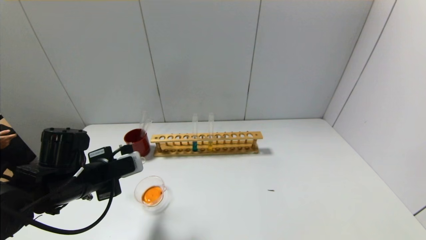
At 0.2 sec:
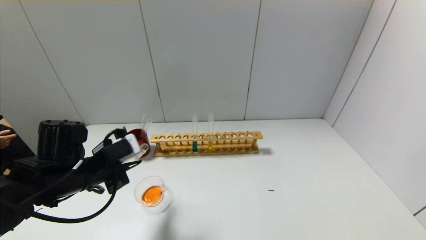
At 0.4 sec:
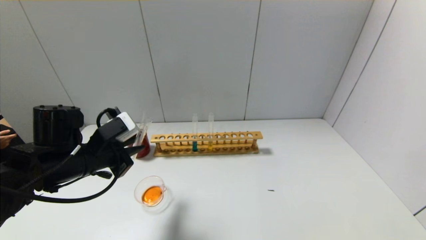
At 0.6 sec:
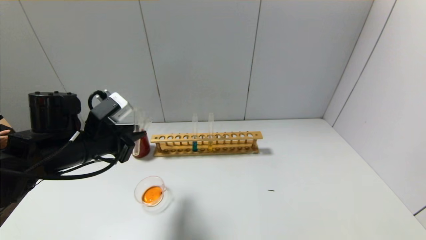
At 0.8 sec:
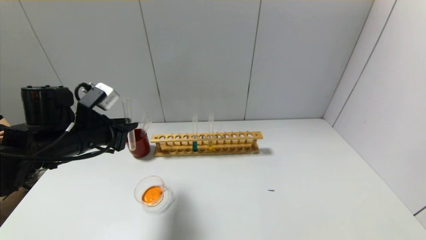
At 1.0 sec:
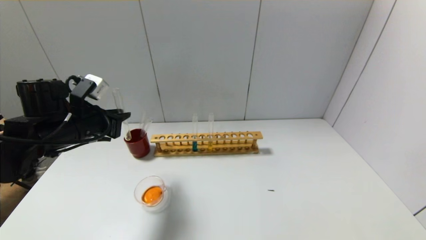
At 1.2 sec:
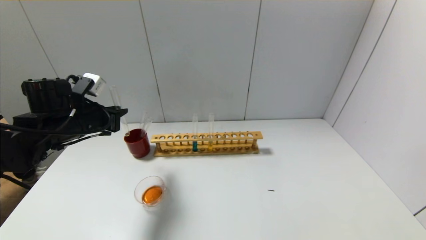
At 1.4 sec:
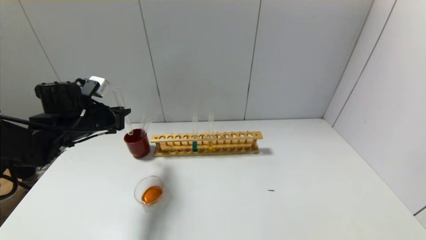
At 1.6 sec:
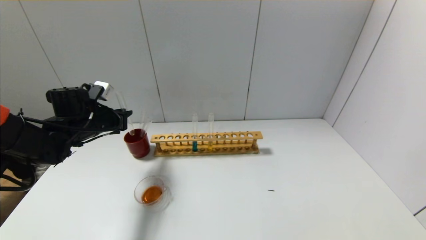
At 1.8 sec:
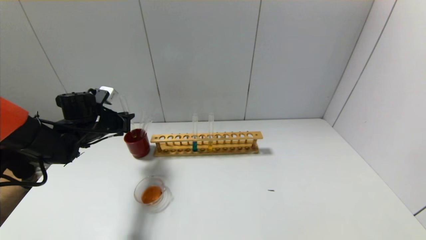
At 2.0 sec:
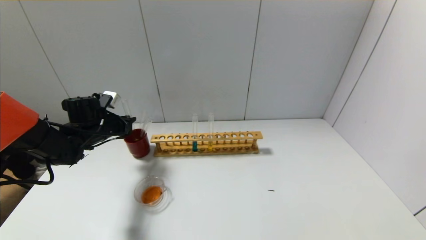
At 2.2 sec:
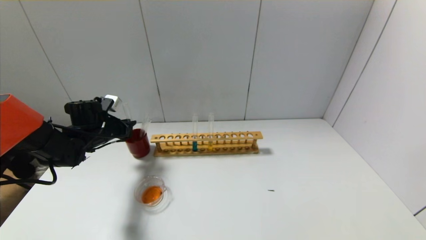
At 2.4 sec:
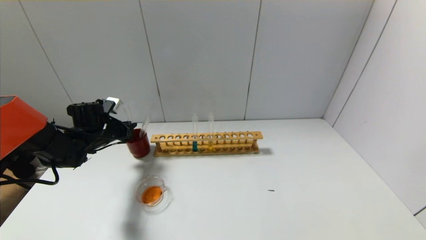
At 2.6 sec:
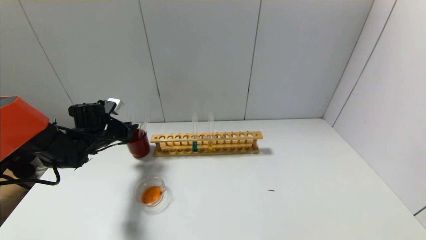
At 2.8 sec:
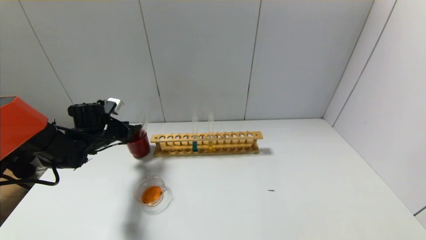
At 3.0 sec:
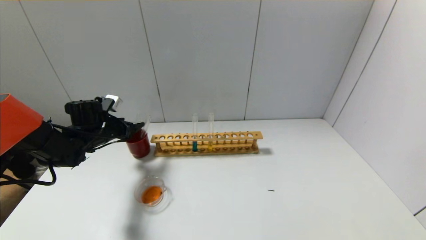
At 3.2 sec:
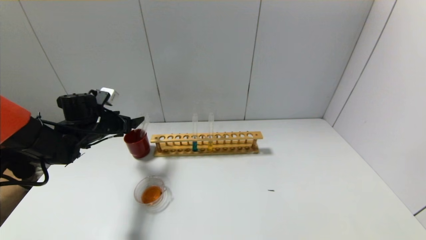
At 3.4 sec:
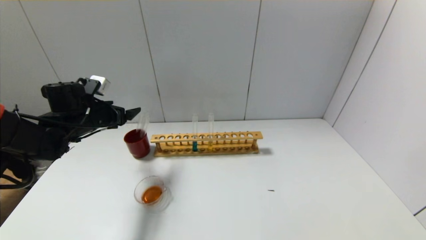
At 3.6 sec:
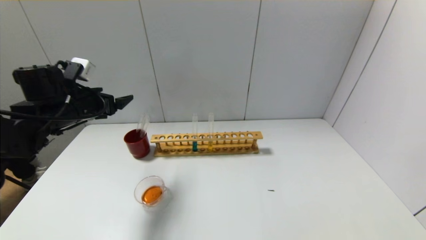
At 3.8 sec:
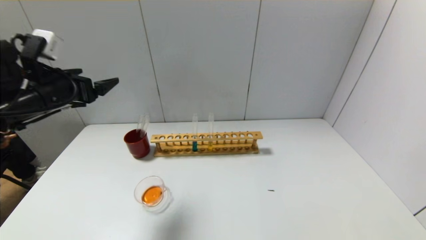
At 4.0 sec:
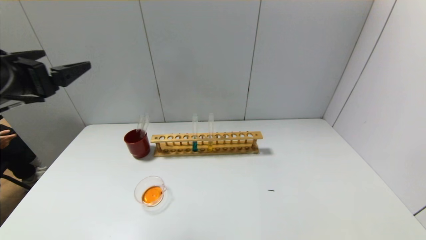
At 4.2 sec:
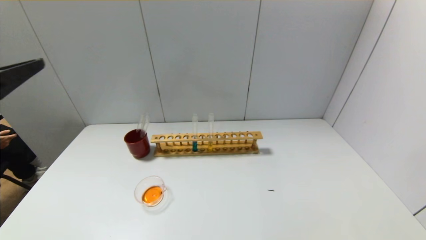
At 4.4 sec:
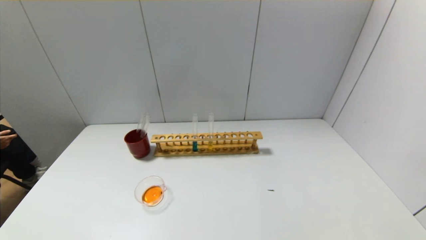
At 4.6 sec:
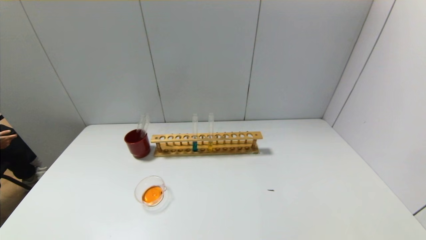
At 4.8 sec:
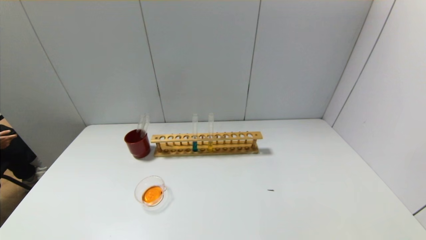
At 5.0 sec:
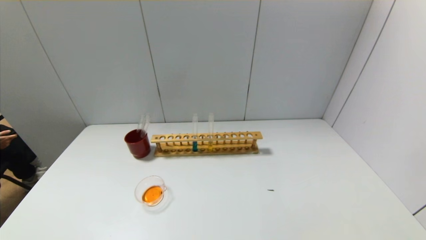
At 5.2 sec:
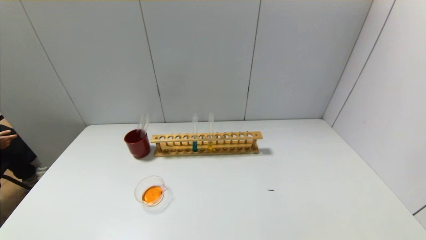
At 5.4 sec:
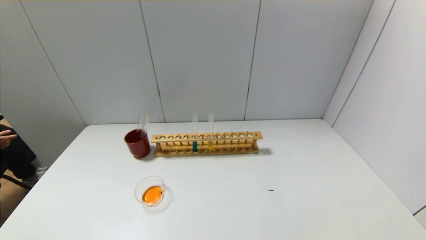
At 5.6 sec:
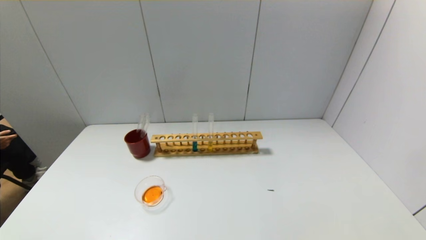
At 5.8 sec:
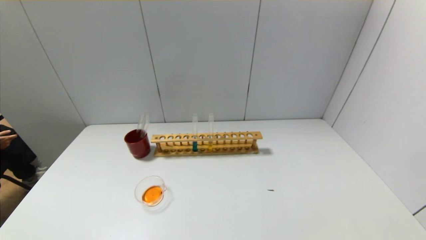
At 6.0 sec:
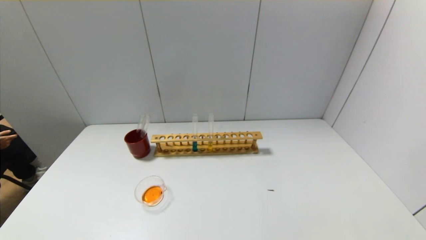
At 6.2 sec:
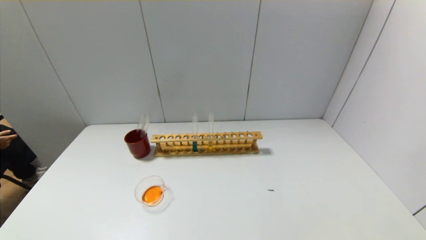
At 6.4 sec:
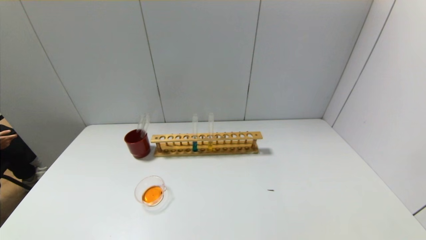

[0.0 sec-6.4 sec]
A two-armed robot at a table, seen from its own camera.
Step, 0.0 sec to 2.8 sec: Place the test tube into the brown cup with the left gripper.
0.0 sec to 1.6 sec: The left gripper heads forward and to the left, covering about 15 cm.
1.6 sec to 3.2 sec: The left gripper opens its fingers.
3.2 sec to 4.8 sec: The left gripper is displaced backward by about 50 cm.
